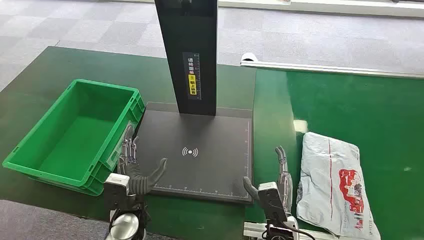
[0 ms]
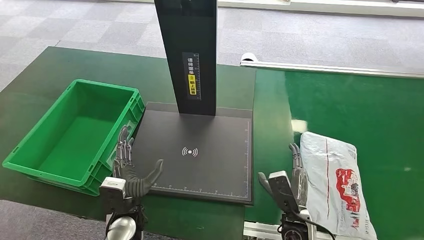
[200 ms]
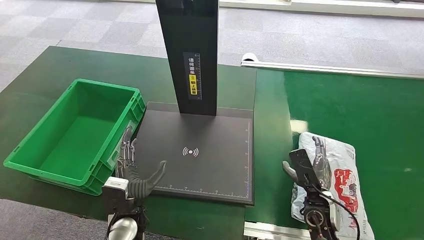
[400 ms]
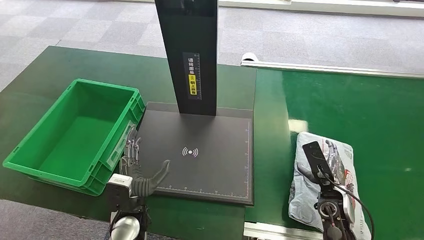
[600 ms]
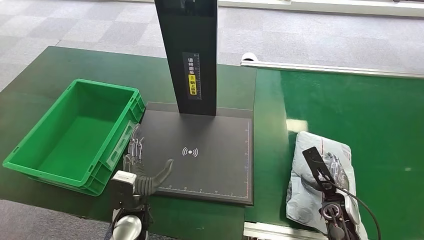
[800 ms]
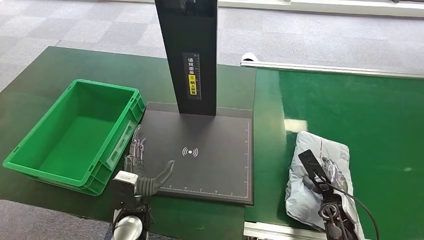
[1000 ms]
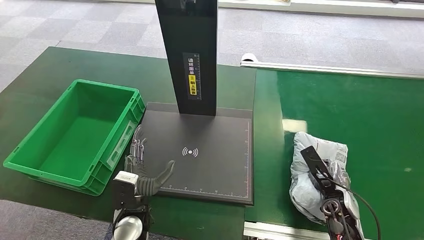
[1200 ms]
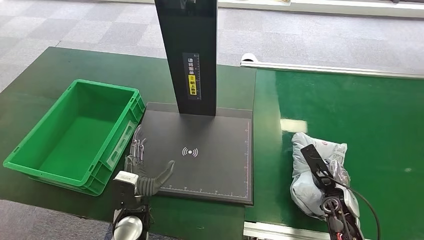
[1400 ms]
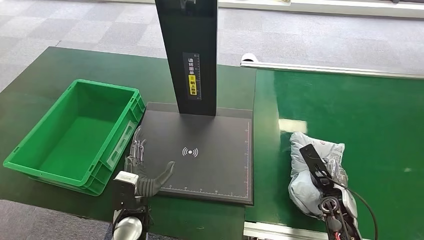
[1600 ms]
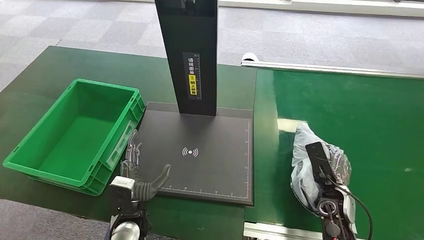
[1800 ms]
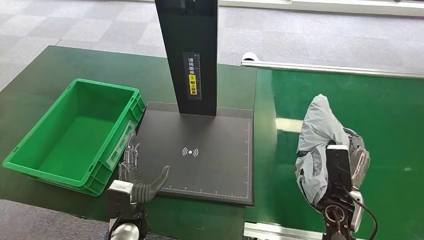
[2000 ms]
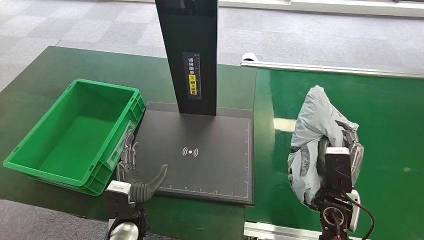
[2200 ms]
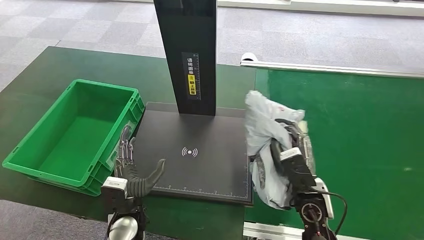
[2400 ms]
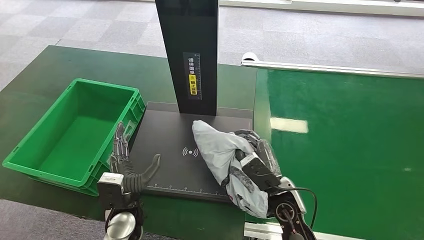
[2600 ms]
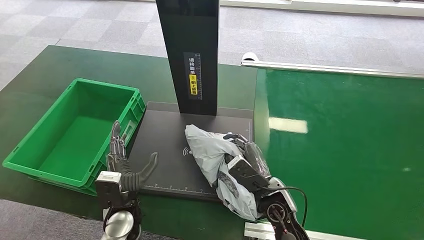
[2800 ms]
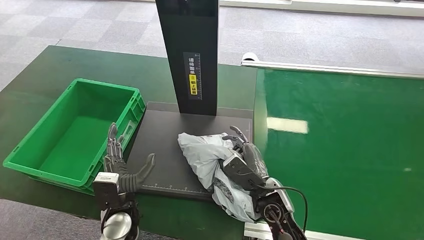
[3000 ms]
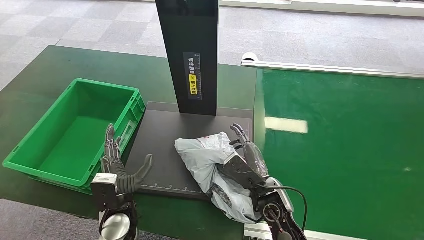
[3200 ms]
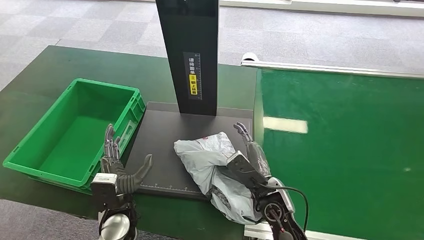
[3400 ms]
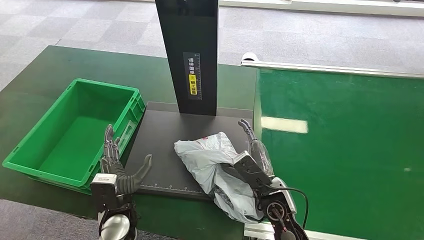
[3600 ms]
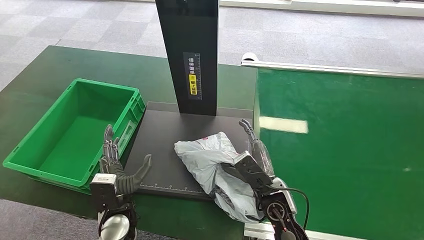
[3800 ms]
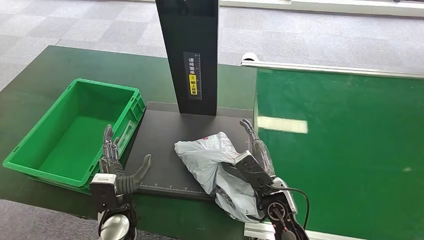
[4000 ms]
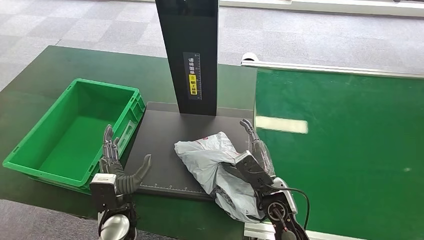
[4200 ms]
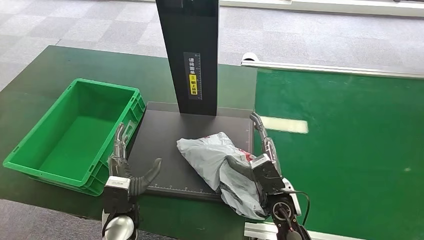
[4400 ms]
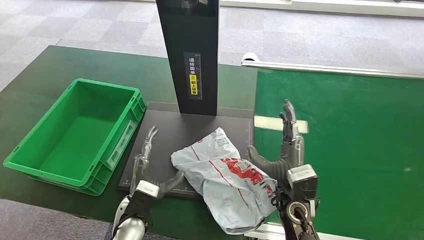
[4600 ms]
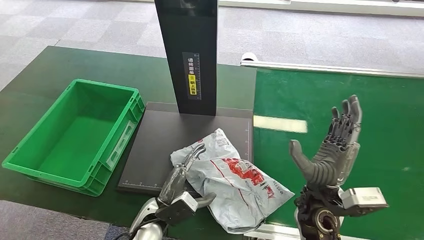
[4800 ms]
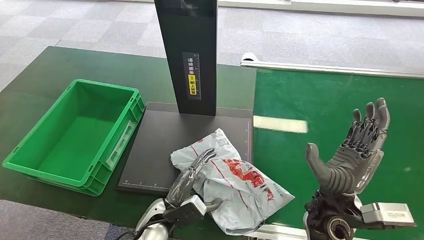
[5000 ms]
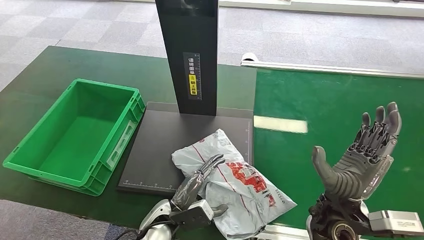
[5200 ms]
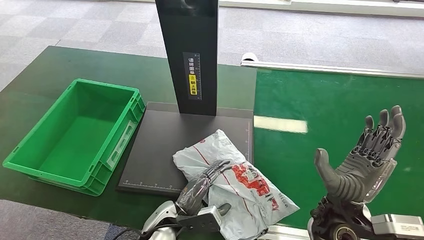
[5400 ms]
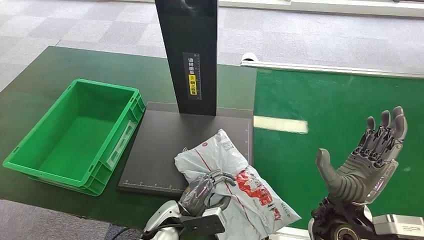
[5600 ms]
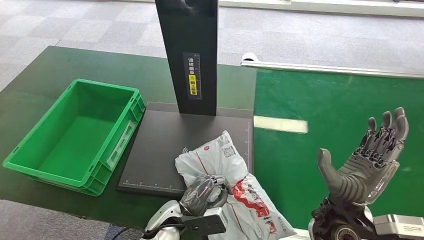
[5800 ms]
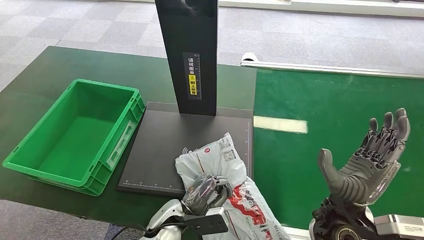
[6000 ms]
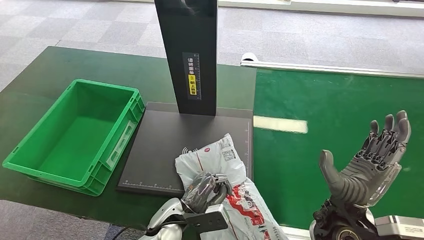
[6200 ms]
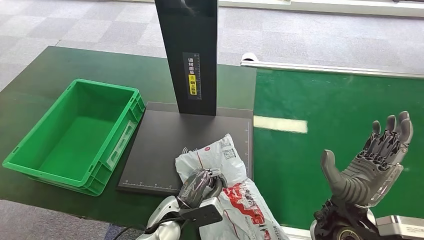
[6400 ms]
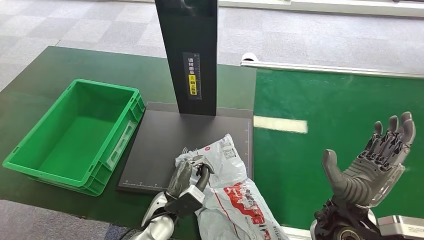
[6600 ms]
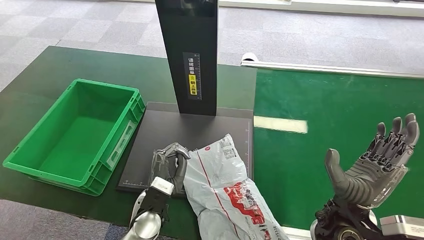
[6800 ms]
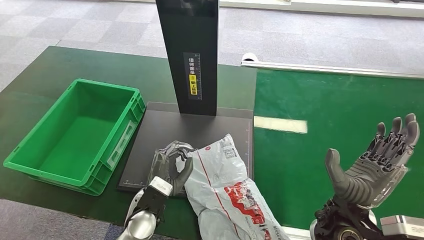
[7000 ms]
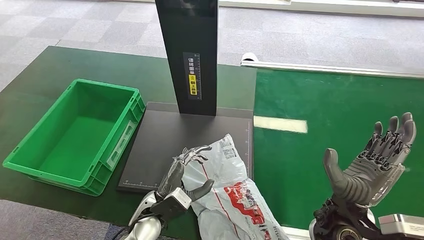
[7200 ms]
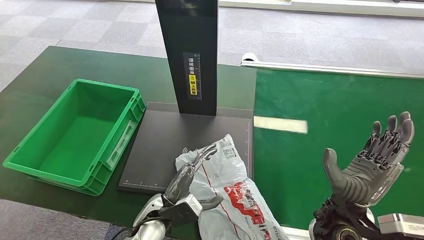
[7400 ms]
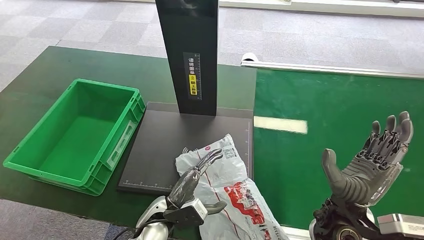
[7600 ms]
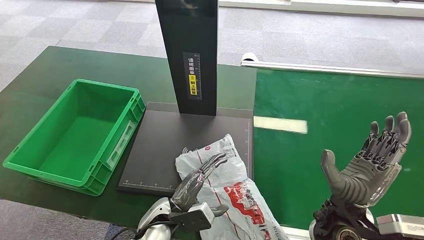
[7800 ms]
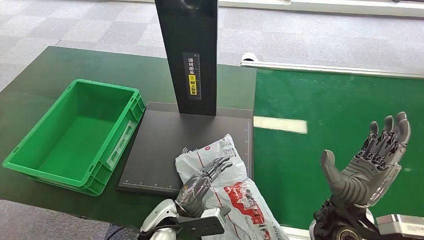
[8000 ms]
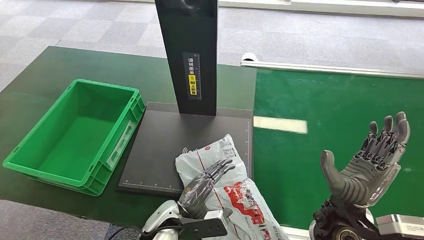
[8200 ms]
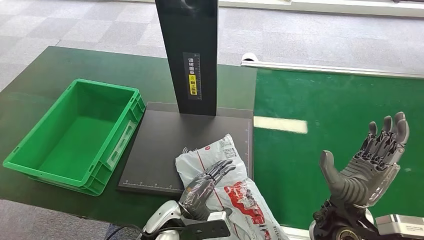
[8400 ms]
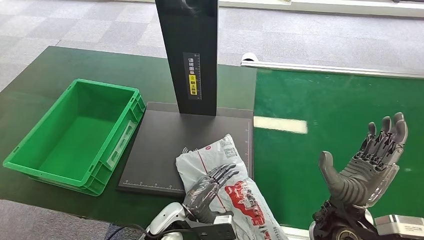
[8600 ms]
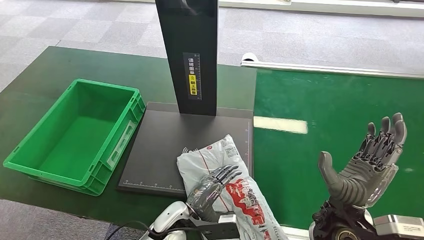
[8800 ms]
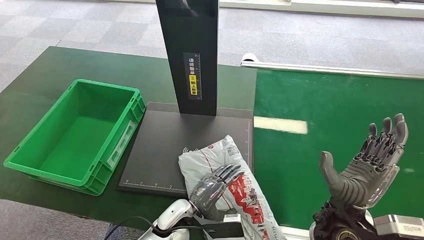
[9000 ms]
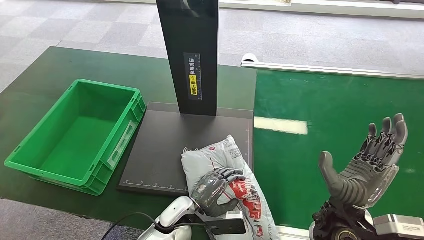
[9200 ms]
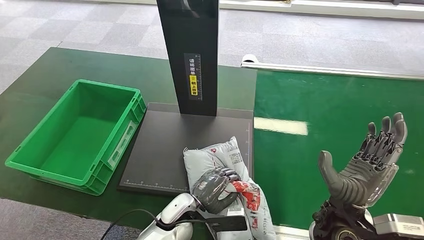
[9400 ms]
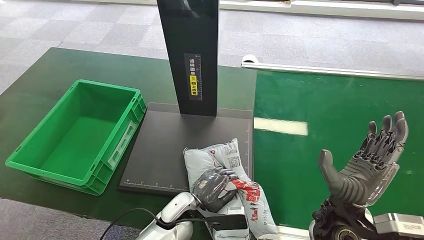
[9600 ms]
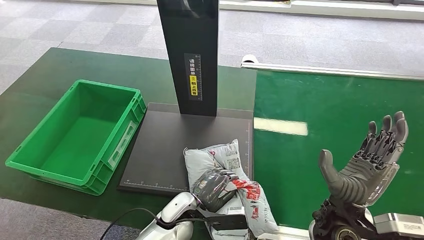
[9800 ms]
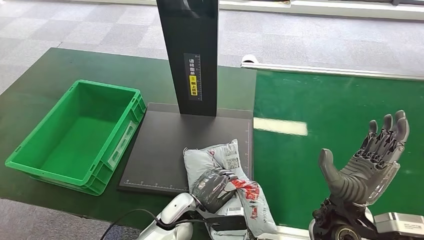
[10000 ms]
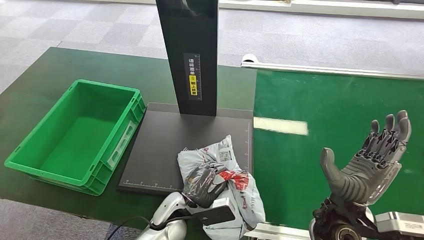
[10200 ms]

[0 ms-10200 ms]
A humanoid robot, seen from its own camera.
Step, 0 ms to 2200 ms: Pick up the package from the conveyor belt.
Step, 2600 ms to 5200 ms: Place the package onto the inbound machine.
3000 ms to 4400 ms: The hands move only a little.
4400 ms to 5800 ms: The left hand heads to the right, covering roughly 10 cm, while the right hand travels upward and to the right by approximately 10 cm.
7200 ms to 8800 ms: The left hand moves roughly 5 cm.
8800 ms to 10200 ms: The hands make only small movements.

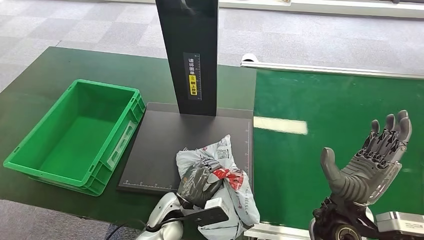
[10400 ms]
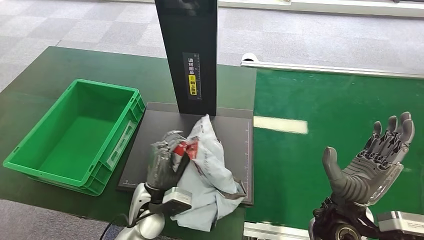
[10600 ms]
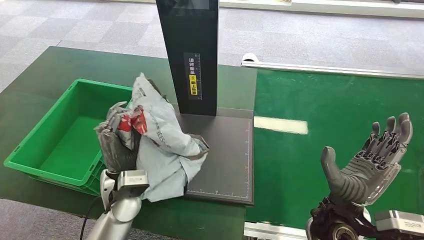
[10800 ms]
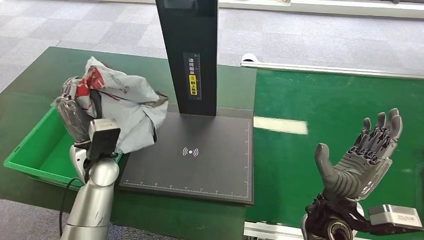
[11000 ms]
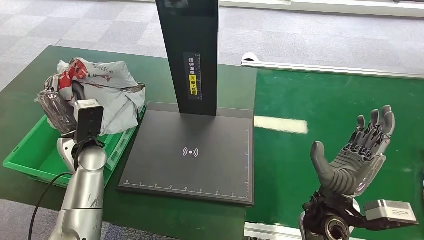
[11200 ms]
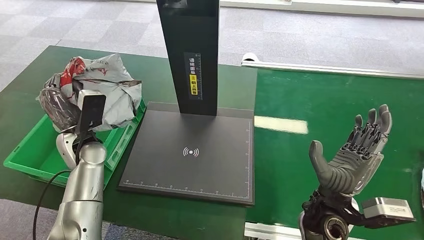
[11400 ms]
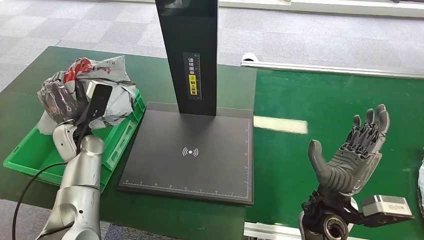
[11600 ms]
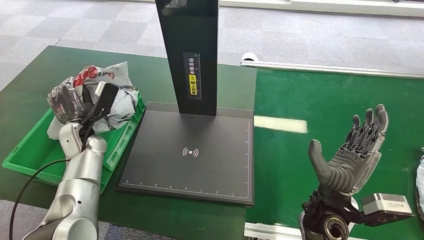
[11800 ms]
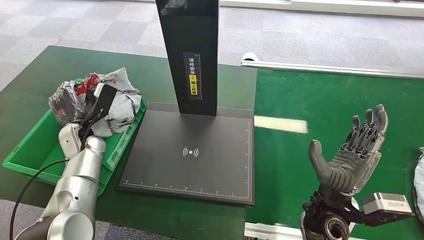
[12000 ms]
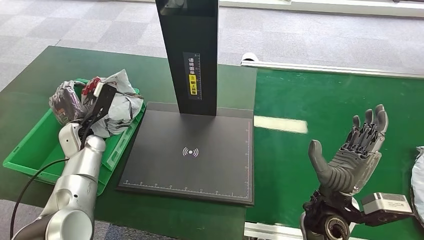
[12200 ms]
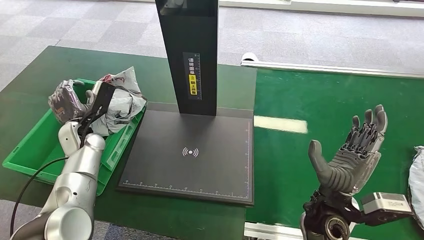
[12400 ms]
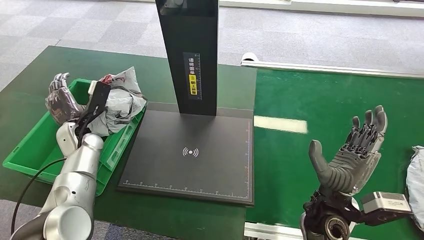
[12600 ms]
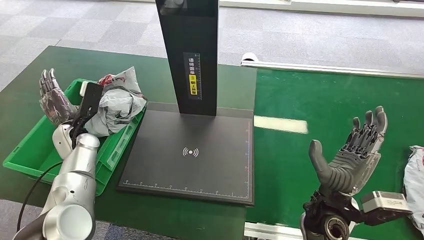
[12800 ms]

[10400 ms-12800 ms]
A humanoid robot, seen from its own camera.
Step, 11200 ms to 12800 ms: Place the package into the parcel locker.
11600 ms to 12800 ms: The hands move only a little.

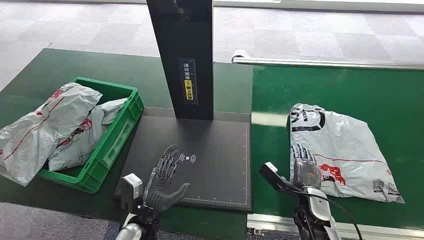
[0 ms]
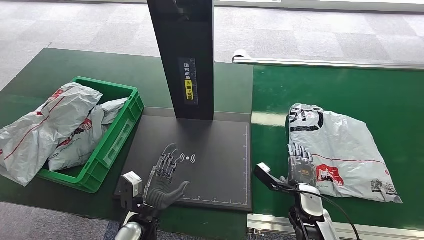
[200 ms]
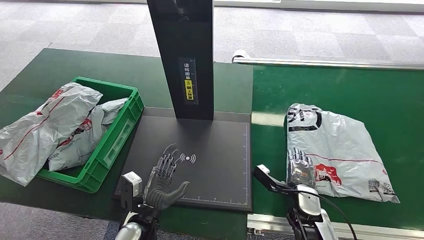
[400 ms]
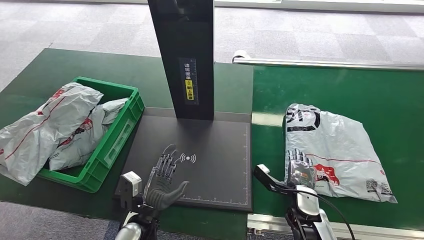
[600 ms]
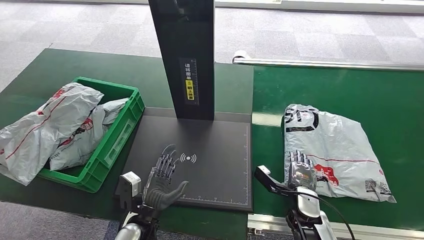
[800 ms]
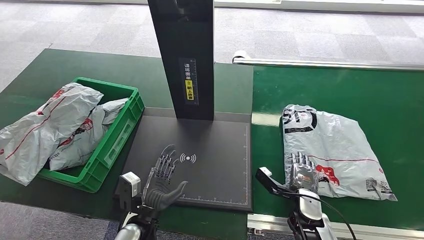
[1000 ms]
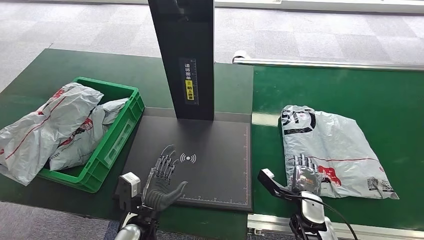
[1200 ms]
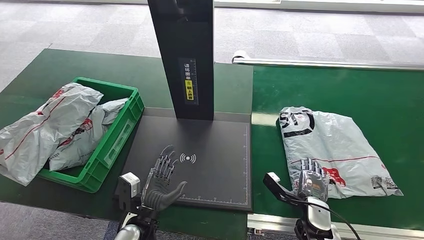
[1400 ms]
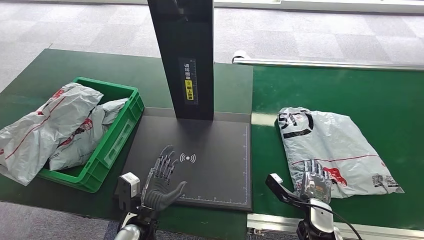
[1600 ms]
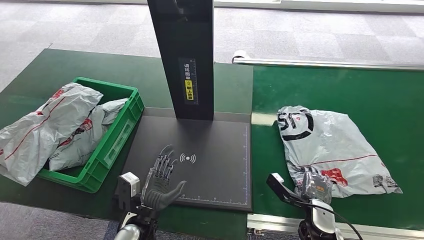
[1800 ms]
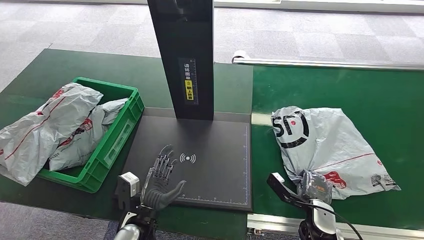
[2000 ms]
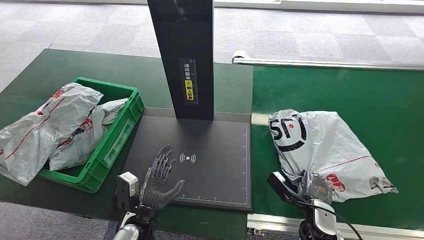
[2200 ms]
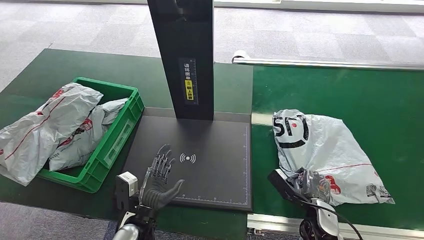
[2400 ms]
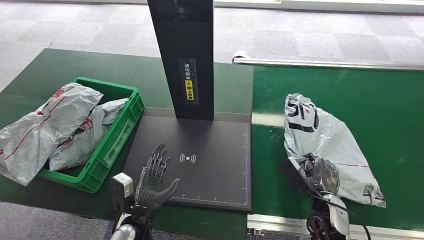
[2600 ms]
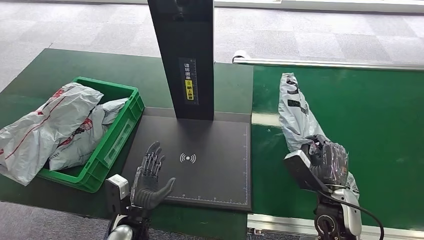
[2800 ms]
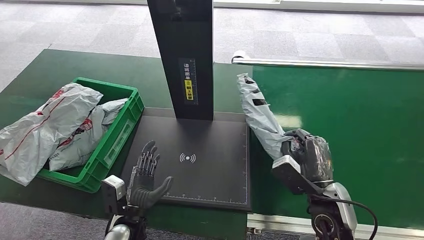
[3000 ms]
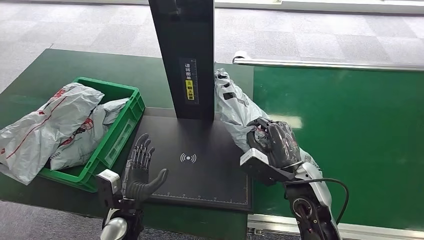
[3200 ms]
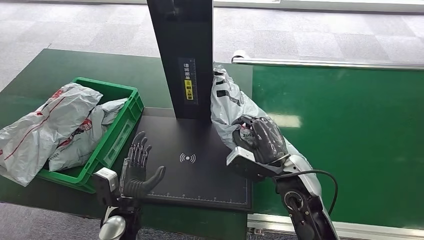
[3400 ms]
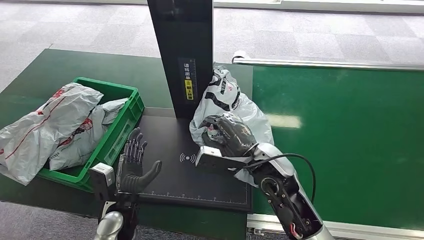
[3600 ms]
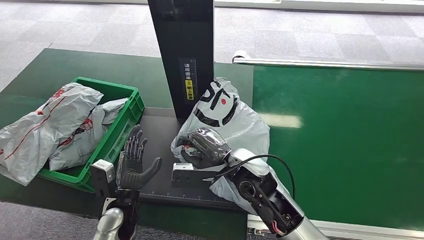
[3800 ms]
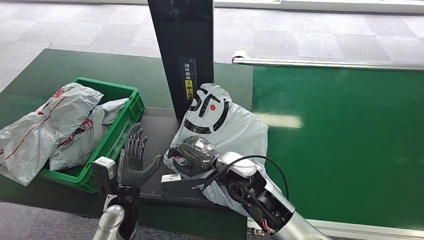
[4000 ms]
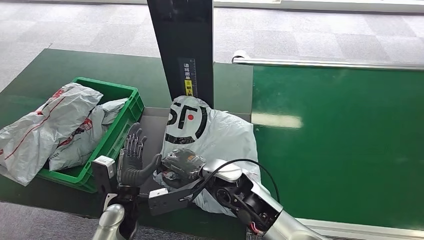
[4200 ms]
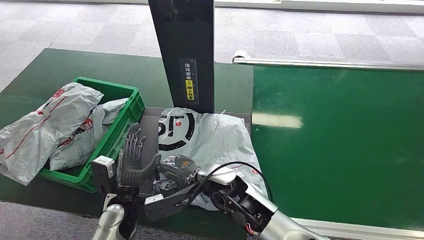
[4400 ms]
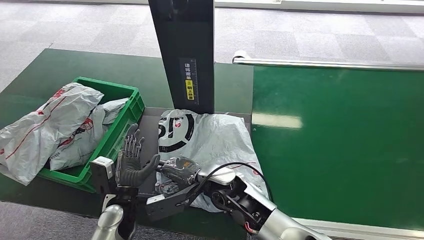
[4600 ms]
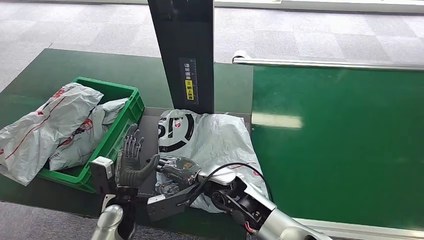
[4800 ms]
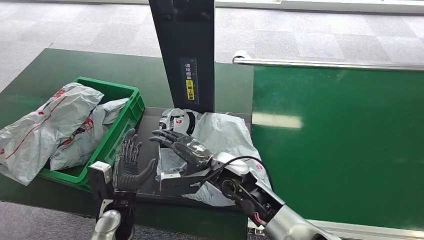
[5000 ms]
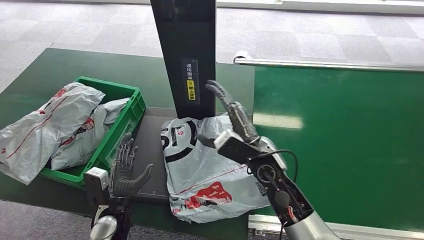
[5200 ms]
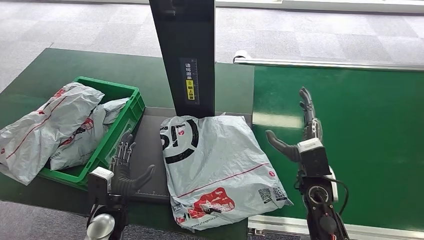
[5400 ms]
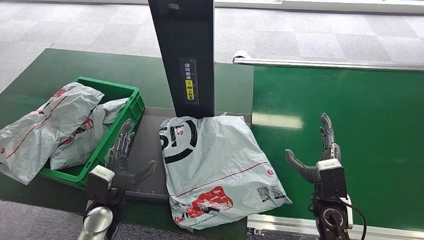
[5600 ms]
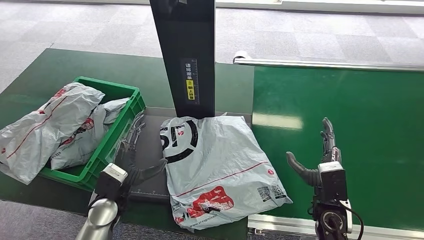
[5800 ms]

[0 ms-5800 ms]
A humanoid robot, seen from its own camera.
Step, 0 ms to 3000 ms: Pick up the package from the conveyor belt.
1400 ms to 2800 ms: The right hand travels upward by roughly 10 cm.
2800 ms to 4400 ms: The left hand ends up some 5 cm from where it was. The right hand heads to the left, covering approximately 25 cm.
4400 ms to 5800 ms: The right hand moves to the right, roughly 25 cm.
